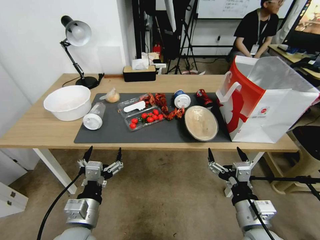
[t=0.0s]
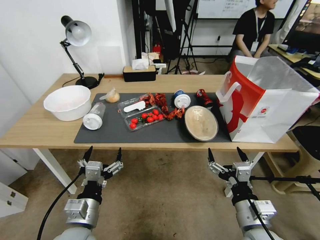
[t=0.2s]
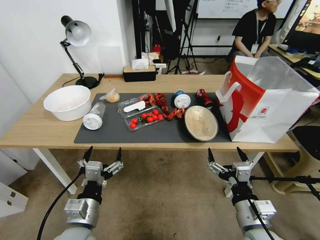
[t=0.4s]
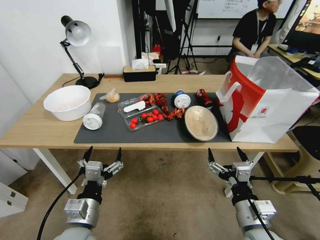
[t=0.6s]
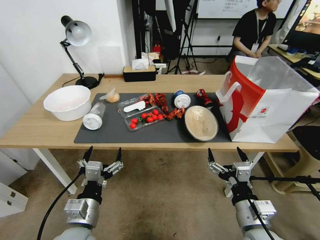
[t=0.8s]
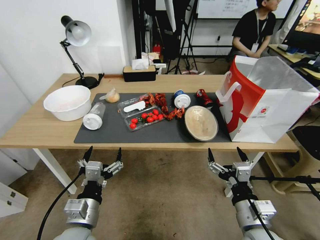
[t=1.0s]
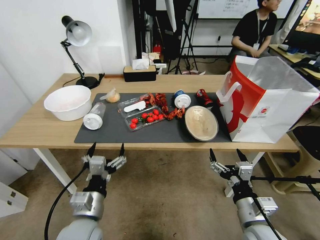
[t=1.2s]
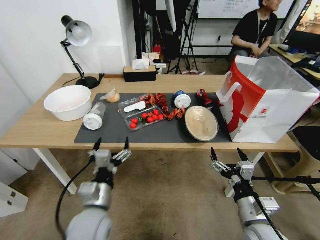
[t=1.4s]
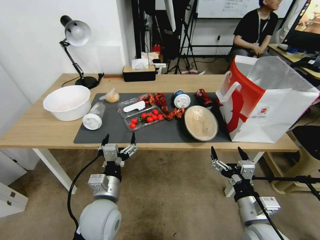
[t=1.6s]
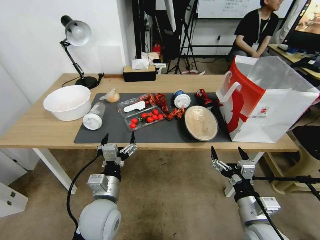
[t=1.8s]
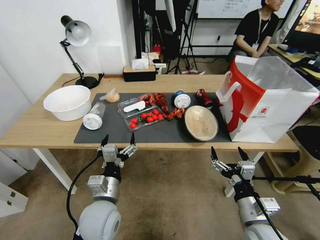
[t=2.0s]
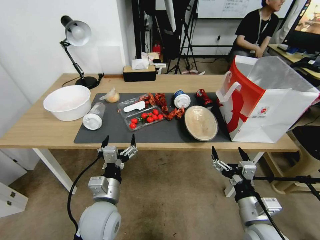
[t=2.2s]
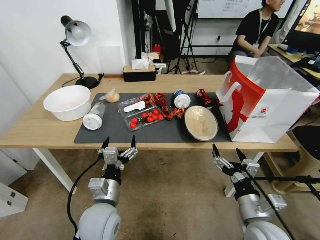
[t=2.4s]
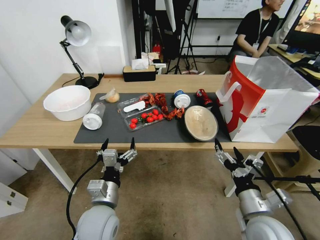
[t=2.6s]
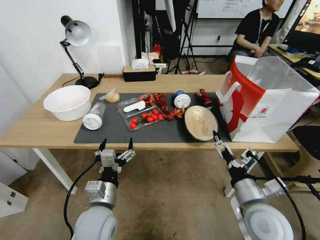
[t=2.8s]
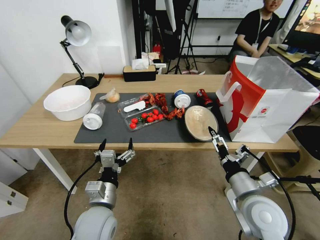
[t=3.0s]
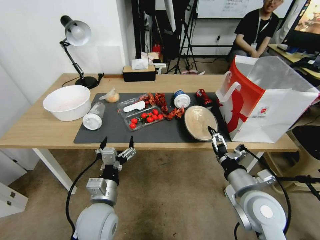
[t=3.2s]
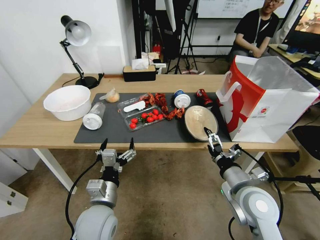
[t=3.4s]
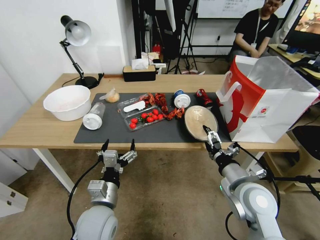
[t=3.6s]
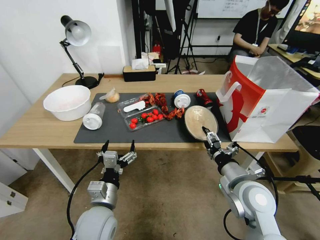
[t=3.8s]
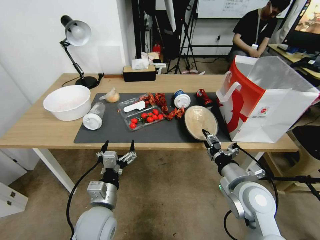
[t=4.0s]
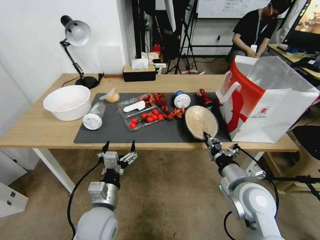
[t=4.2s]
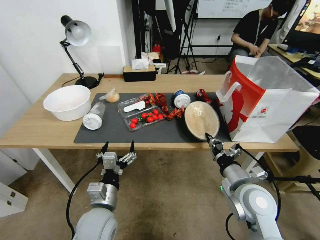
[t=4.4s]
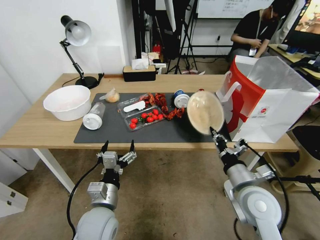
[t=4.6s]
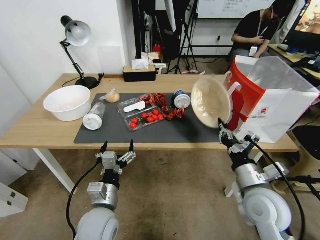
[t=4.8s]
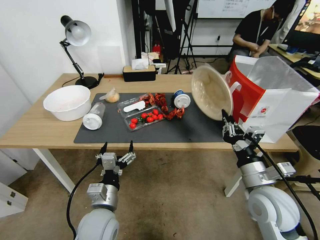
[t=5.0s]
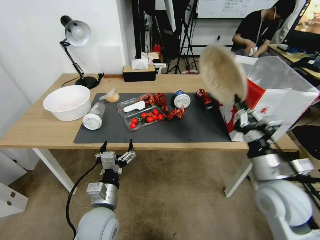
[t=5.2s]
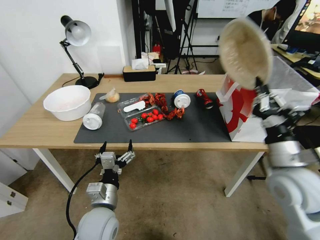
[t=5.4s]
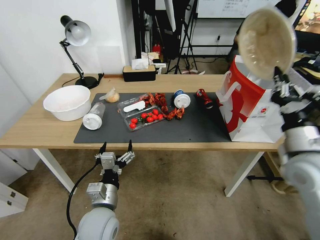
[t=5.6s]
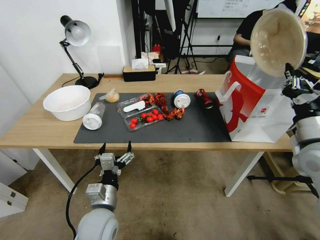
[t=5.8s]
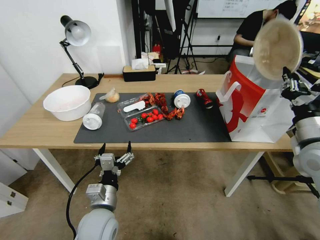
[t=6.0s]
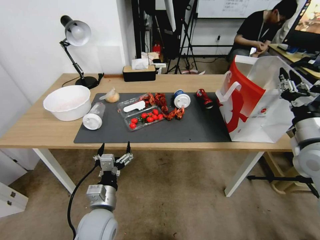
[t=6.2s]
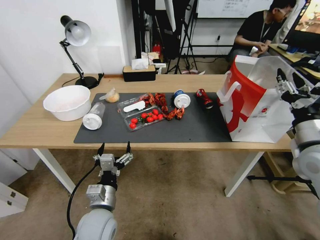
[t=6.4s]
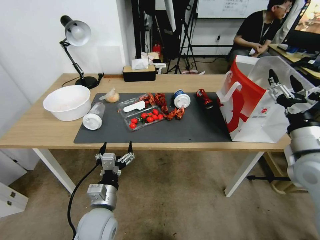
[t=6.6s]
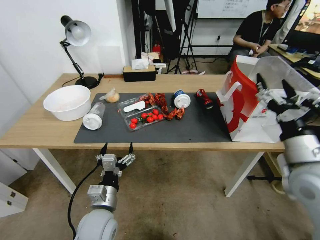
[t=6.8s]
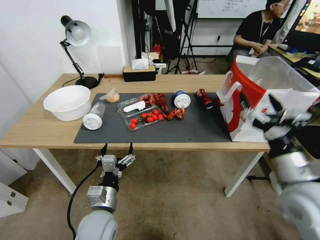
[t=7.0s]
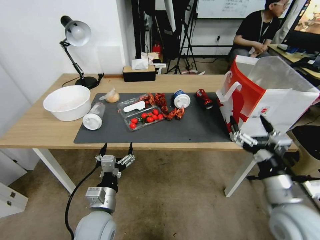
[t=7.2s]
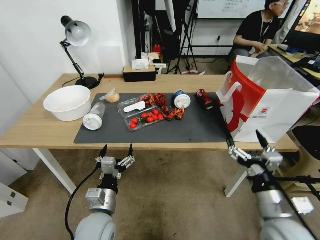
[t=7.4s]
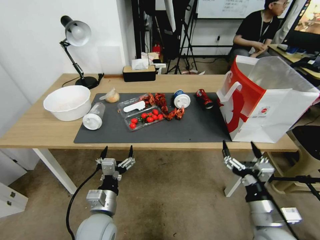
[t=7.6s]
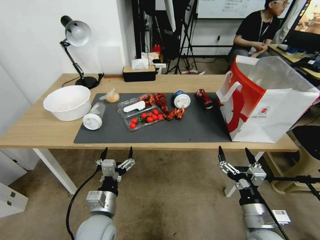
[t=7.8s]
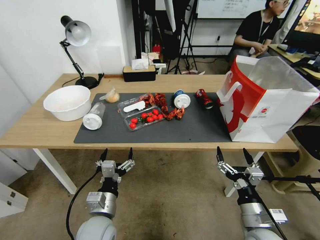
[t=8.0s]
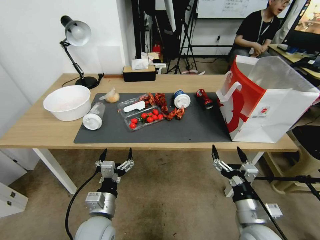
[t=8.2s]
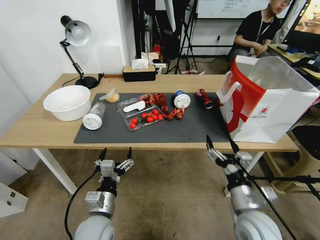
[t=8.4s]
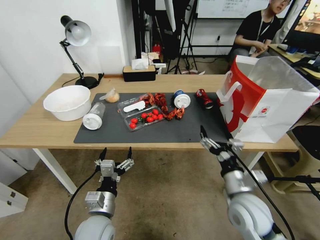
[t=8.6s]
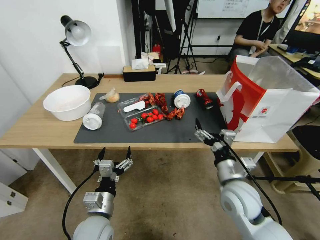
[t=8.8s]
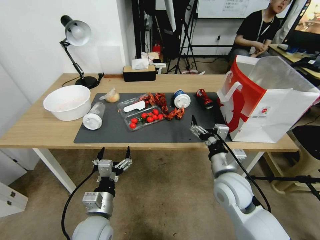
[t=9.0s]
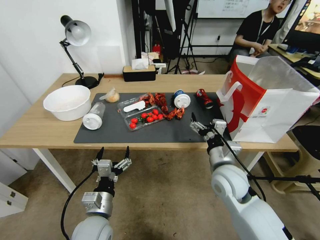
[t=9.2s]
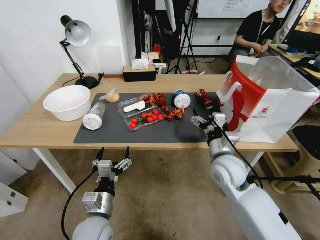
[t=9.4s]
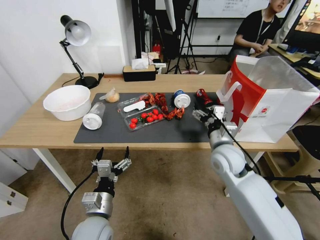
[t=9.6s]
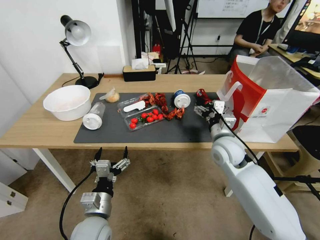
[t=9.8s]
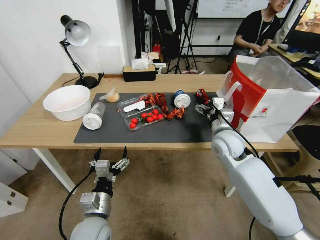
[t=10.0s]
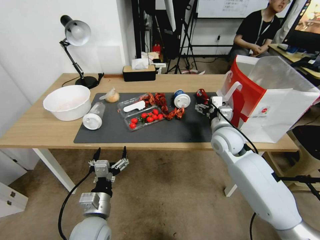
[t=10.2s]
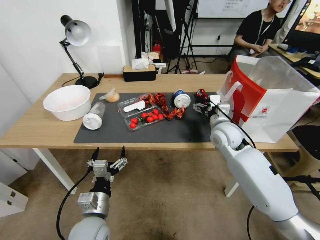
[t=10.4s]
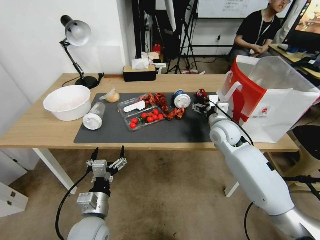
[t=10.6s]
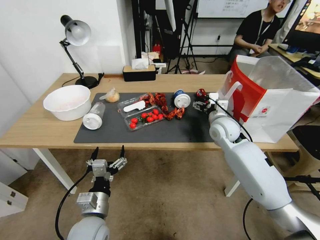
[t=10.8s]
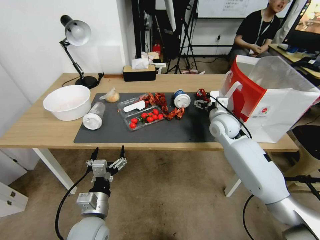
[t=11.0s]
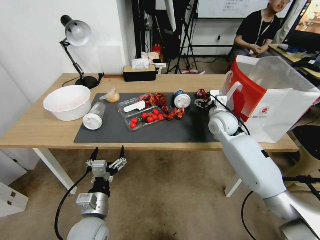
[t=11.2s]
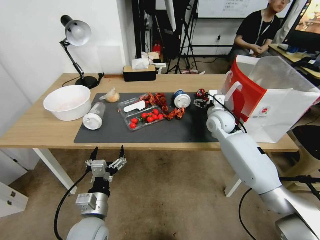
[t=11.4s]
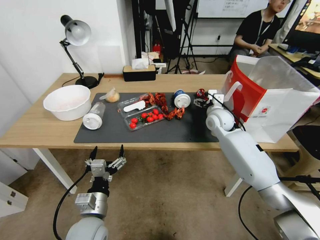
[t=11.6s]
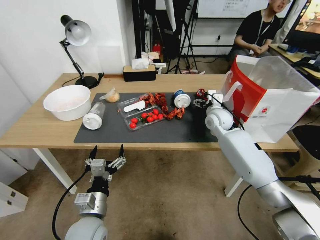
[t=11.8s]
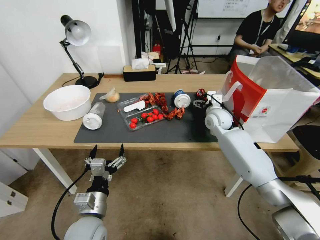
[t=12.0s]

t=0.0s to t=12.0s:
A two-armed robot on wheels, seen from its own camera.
t=1.6s to t=3.0s: The right gripper heads forward, covering some 5 cm.
t=3.0s to t=4.4s: The right gripper closes up.
t=4.4s to t=6.0s: The right gripper travels to the right and upward by about 20 cm.
t=6.0s to t=7.6s: The right gripper shifts about 25 cm downward, backward and to the left, and opens up.
t=7.6s to t=9.0s: The right gripper goes approximately 15 cm forward and to the left.
t=9.0s to t=10.4s: The right gripper shifts about 15 cm forward.
t=10.4s to t=12.0s: The right gripper moves forward, approximately 10 cm.

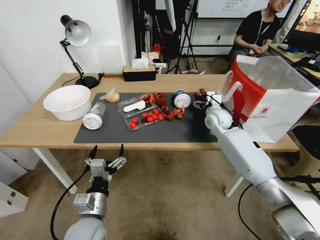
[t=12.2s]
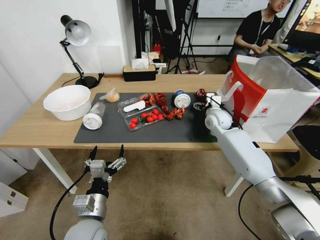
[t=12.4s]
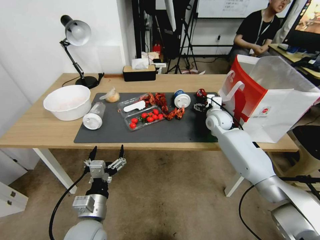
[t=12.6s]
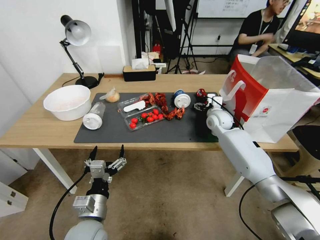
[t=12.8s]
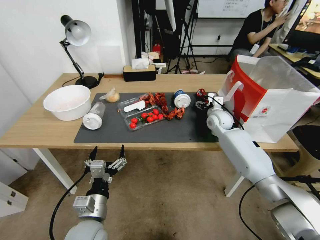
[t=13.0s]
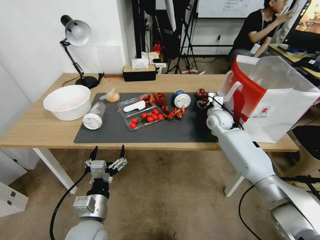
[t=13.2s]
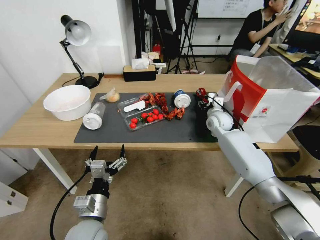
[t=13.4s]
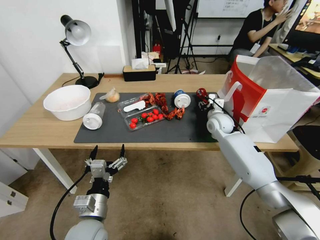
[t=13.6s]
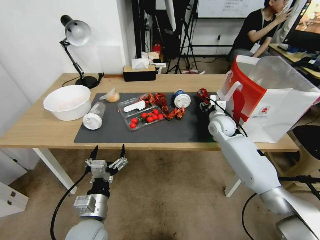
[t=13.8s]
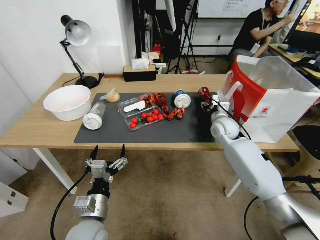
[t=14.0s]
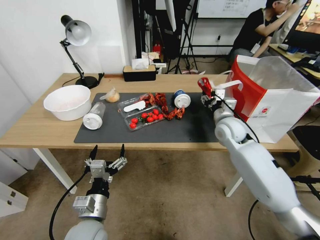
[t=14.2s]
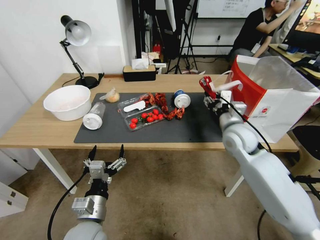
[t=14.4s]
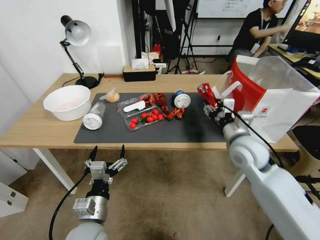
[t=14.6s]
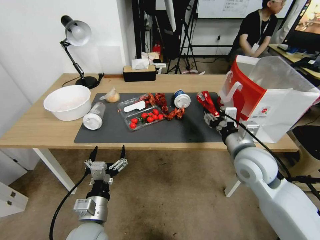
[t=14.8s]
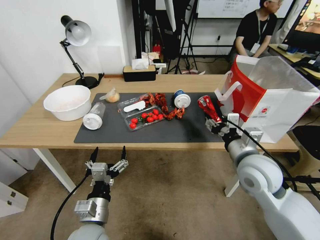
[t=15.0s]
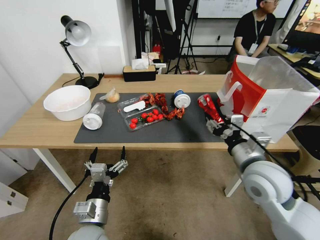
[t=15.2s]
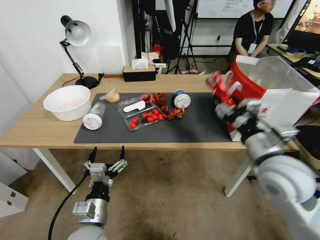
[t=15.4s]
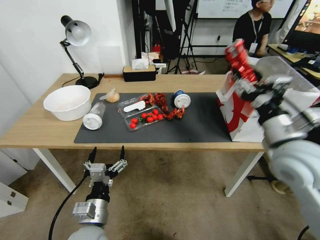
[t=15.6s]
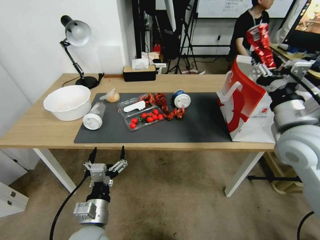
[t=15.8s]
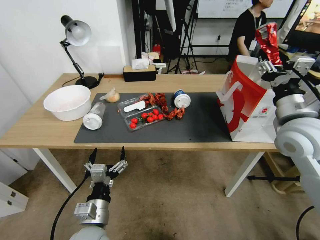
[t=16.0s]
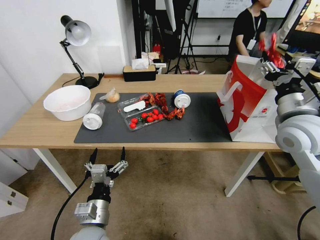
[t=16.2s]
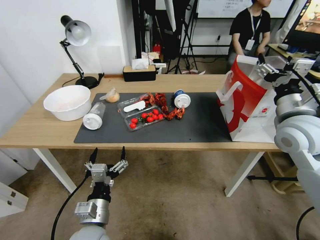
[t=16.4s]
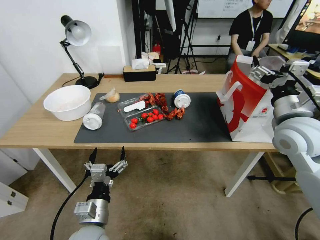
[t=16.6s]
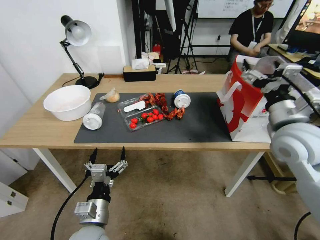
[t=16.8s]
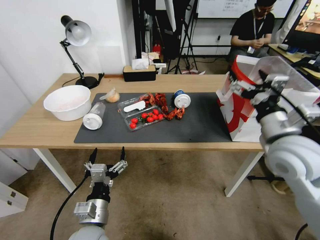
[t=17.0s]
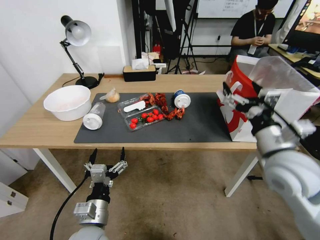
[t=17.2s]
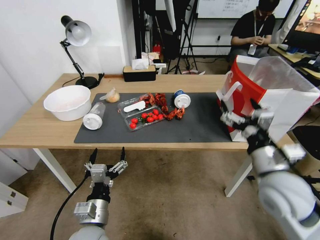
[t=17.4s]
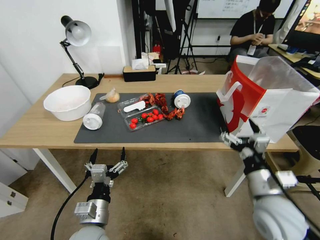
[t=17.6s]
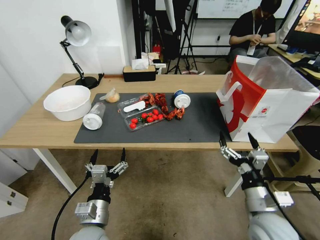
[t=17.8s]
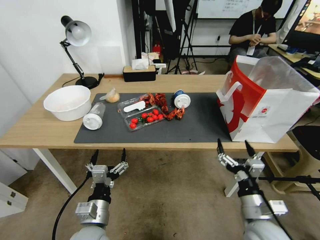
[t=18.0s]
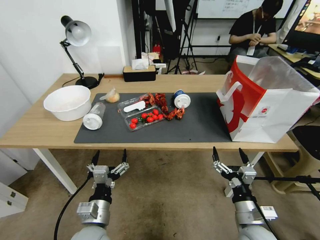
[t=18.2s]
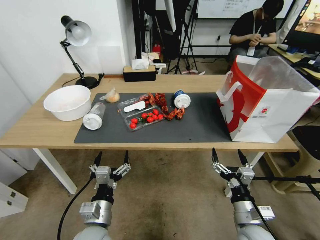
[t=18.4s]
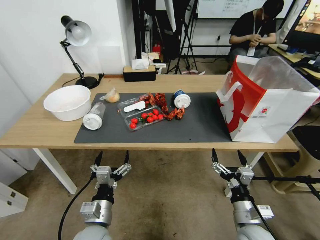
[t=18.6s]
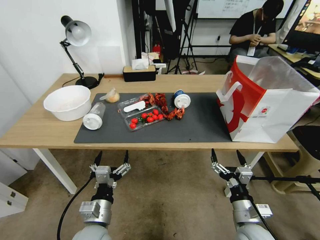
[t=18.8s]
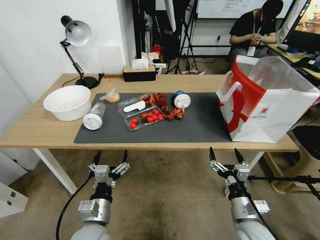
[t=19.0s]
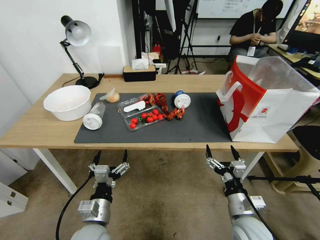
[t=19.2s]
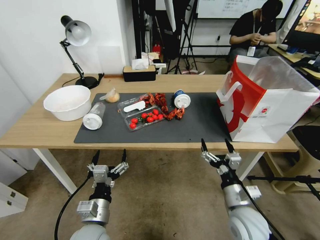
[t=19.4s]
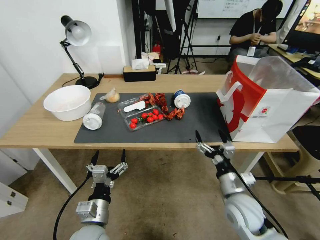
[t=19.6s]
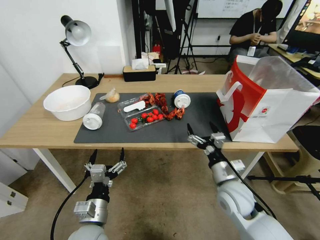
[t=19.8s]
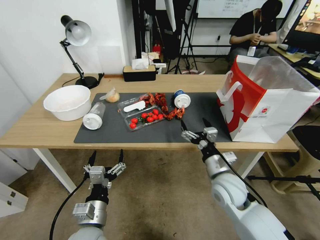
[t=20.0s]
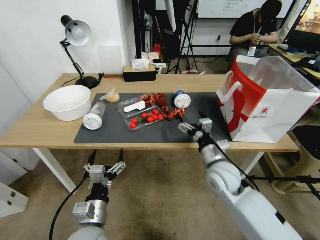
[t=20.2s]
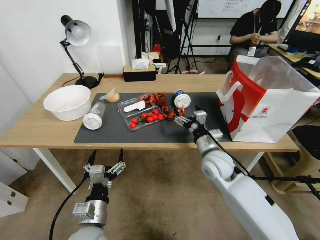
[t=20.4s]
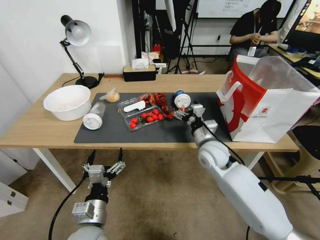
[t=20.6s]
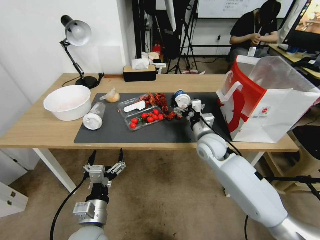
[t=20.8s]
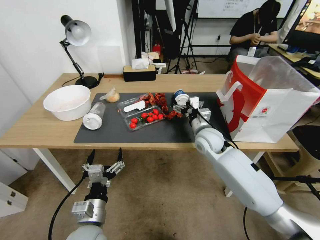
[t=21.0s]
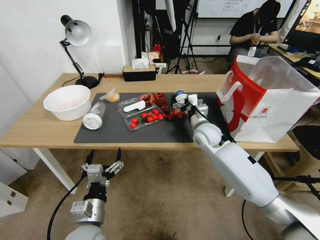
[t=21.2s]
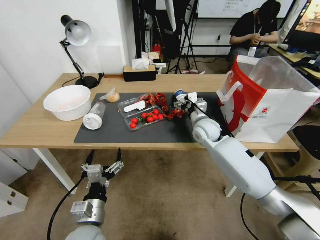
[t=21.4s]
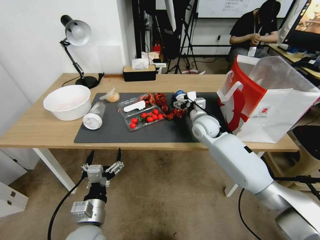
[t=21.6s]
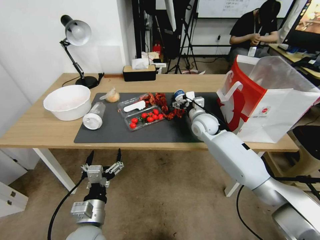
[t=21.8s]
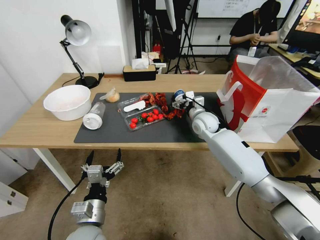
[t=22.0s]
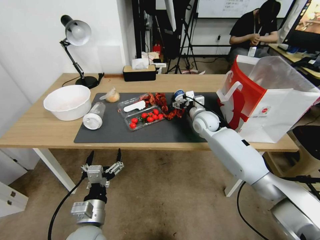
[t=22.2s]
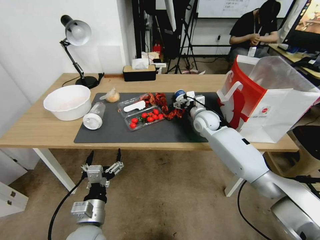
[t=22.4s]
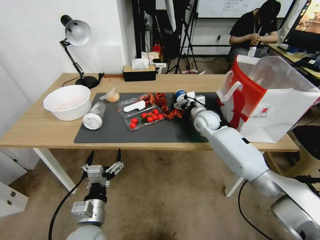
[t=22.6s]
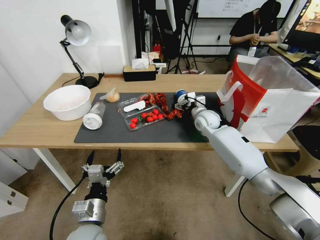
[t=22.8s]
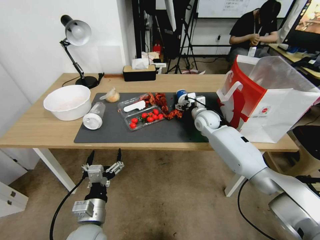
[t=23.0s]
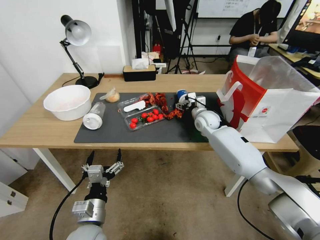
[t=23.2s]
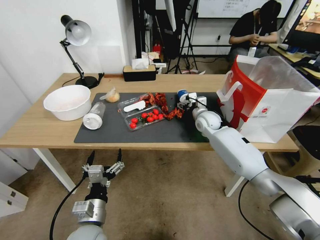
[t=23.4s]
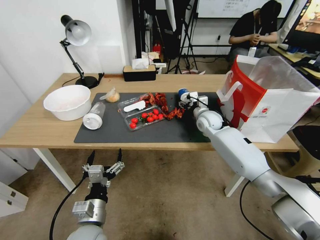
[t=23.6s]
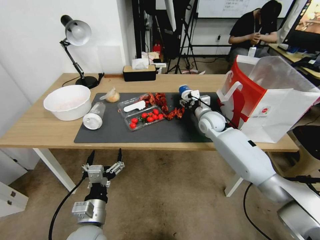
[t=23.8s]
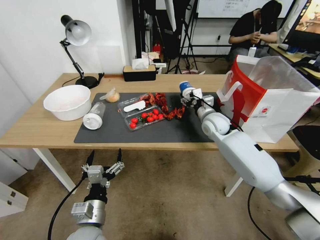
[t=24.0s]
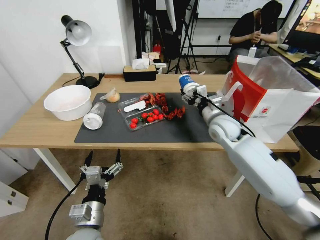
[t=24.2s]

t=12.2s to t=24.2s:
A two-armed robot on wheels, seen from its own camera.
t=12.2s to t=13.8s: The right gripper closes its fingers.
t=13.8s to t=15.2s: The right gripper heads backward, covering approximately 25 cm.
t=15.2s to t=16.6s: The right gripper travels upward, to the right and forward by some 15 cm, and opens.
t=16.6s to t=18.2s: The right gripper shifts some 30 cm downward and backward.
t=18.2s to t=19.8s: The right gripper shifts about 10 cm forward.
t=19.8s to t=21.2s: The right gripper goes some 20 cm forward.
t=21.2s to t=22.6s: The right gripper heads forward, covering about 10 cm.
t=22.6s to t=24.2s: The right gripper goes approximately 10 cm backward and upward, and closes up.
